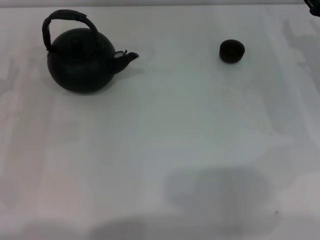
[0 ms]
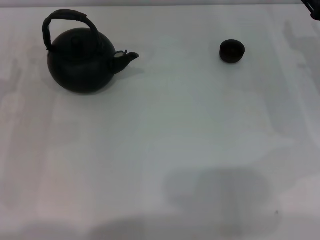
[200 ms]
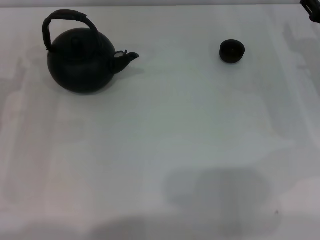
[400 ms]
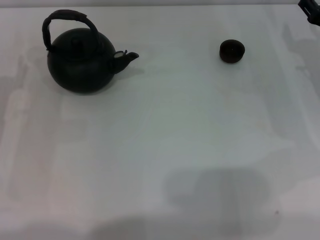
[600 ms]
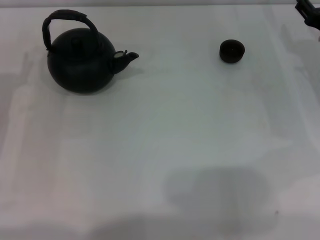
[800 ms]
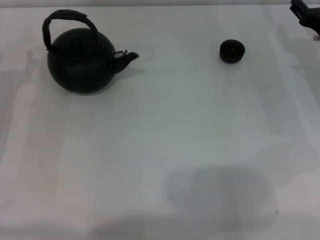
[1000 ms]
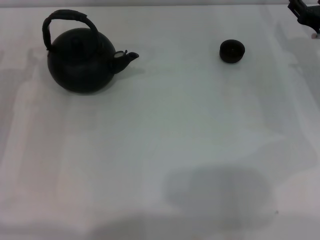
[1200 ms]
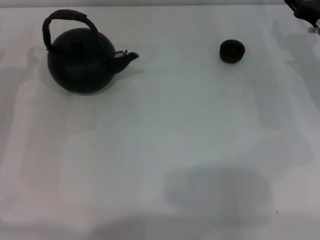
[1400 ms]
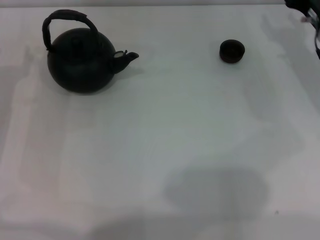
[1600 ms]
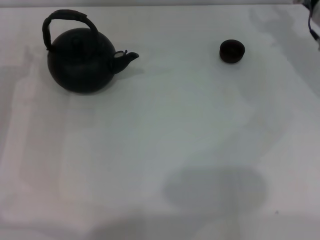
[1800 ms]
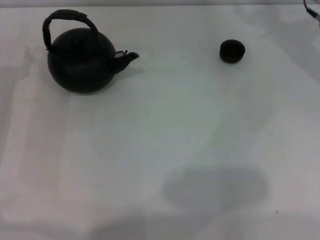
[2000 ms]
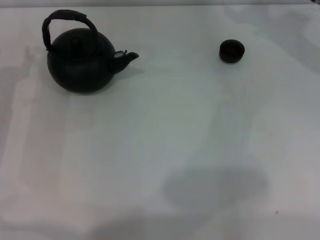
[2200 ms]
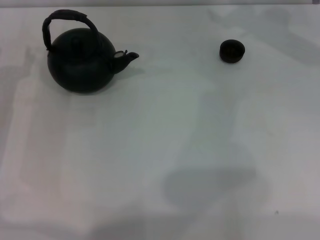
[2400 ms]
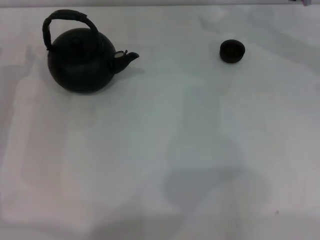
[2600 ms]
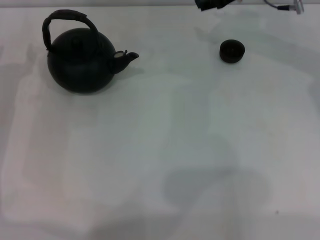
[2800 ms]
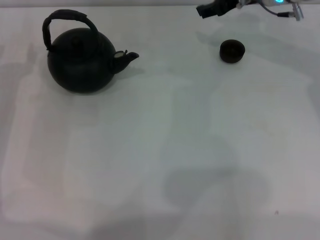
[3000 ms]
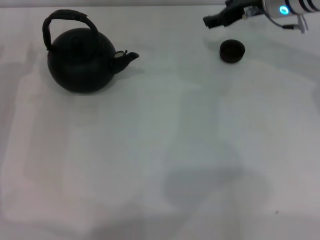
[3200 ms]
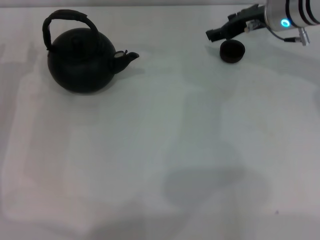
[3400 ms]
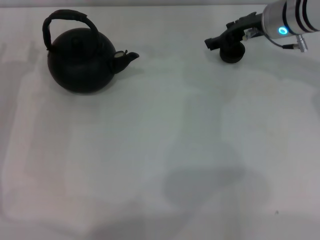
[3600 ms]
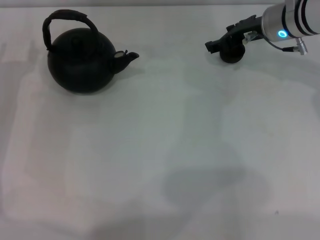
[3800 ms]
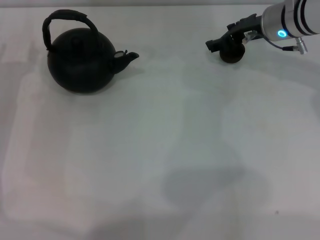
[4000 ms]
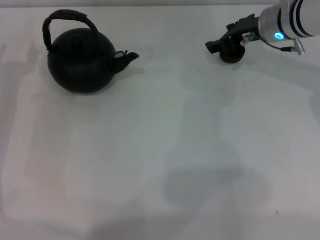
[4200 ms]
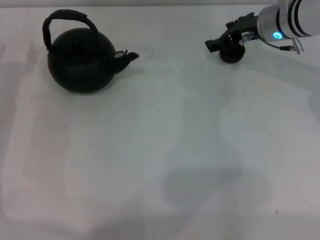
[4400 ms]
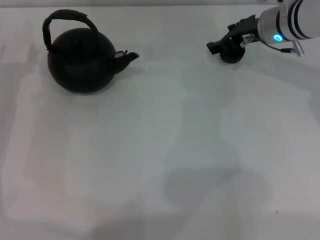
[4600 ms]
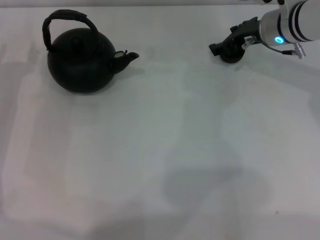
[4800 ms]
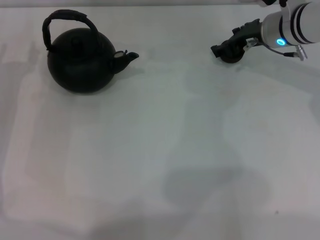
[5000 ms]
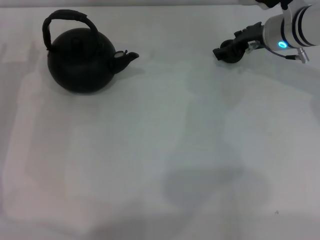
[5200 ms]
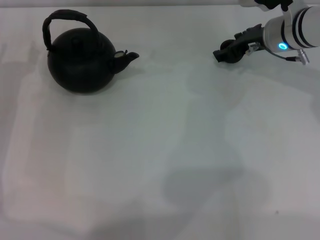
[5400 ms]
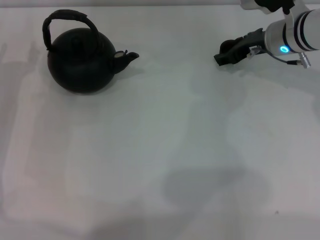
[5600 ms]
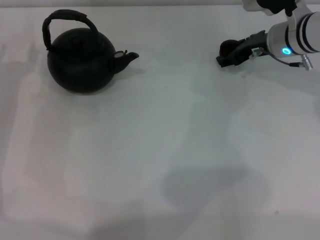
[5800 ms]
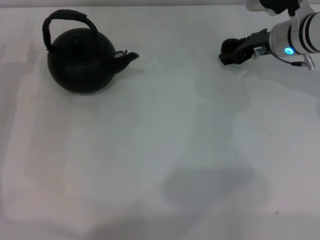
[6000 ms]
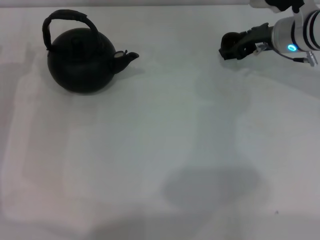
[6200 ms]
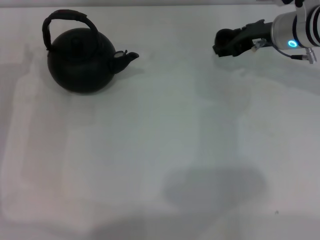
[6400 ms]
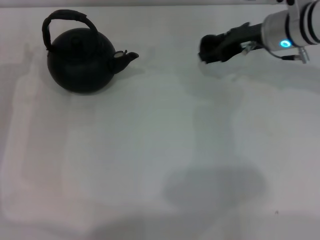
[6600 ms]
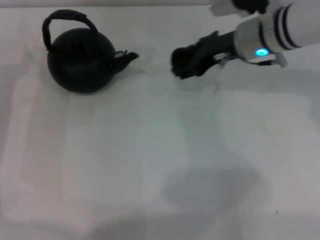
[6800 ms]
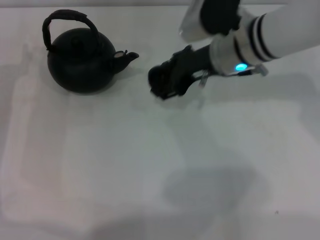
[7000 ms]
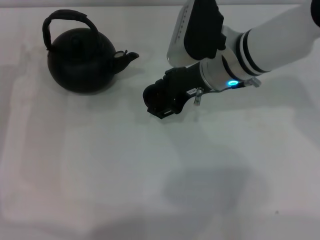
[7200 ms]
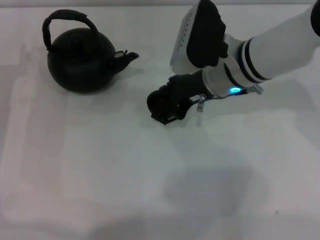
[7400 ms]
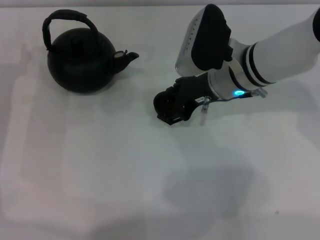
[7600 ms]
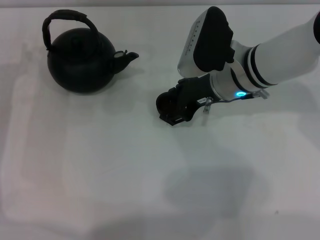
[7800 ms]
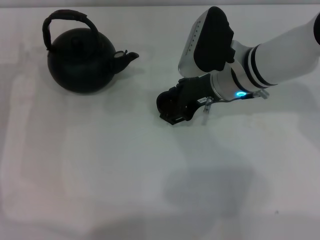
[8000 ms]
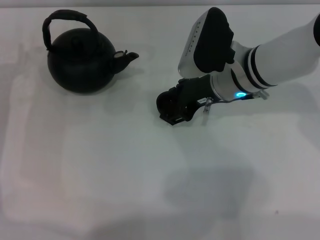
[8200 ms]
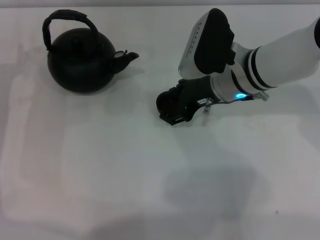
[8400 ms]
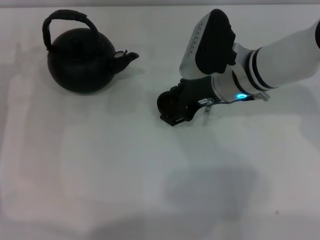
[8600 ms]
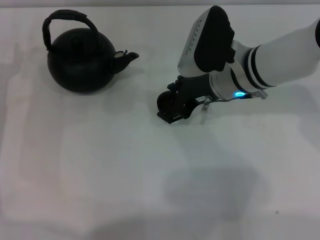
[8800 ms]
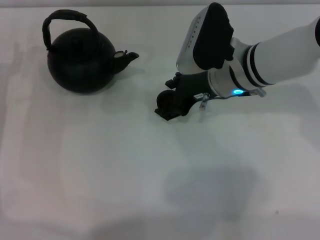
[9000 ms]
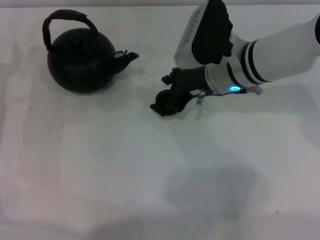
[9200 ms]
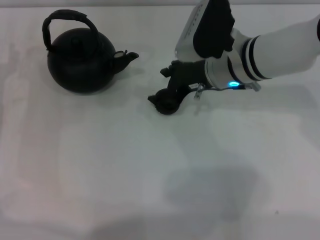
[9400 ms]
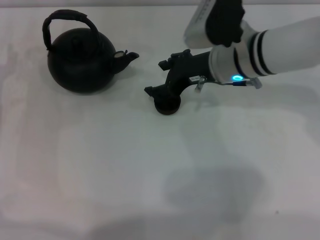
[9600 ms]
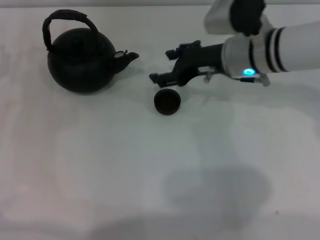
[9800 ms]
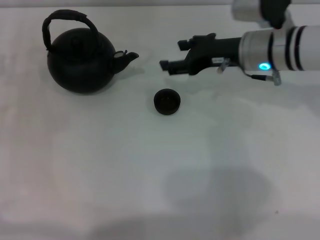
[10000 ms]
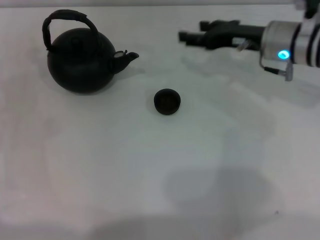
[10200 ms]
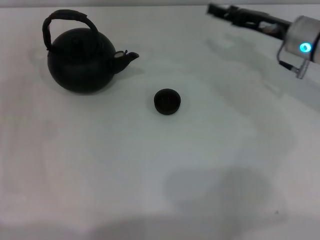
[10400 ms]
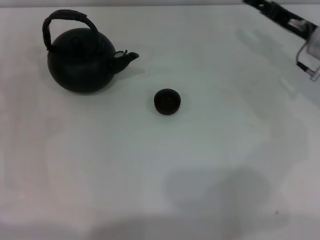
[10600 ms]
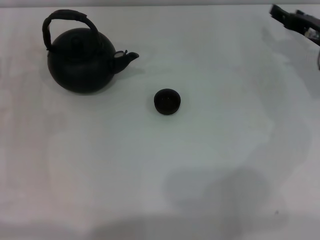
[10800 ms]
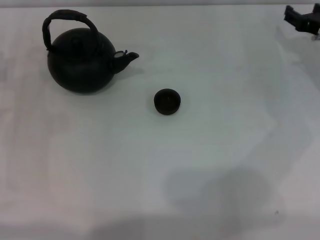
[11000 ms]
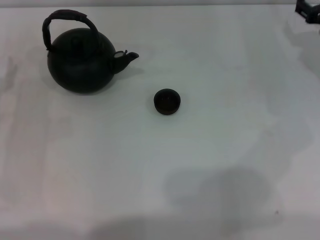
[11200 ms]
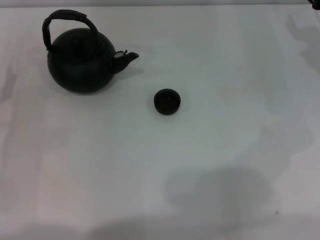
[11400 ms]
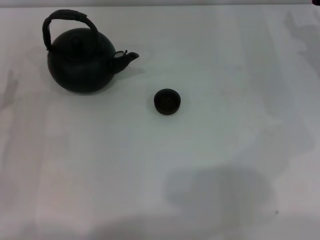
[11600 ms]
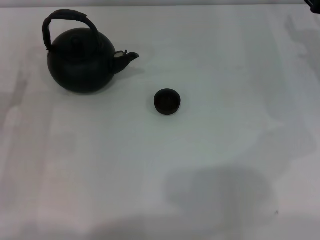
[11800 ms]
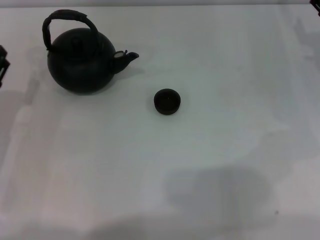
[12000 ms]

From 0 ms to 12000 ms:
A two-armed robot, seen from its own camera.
Task of the whole recording: Grasp the handle of the teapot with one hand and pour tea into the teacup.
Step, from 0 ms to 6000 ms: Pick up the teacup with the right gripper.
Step, from 6400 ms to 9800 ms: Place the teacup in the center of view with the right gripper.
From 1600 ms to 3000 ms: The right gripper is displaced to the left, upward and forward by some 15 cm.
From 3000 ms to 4400 ms: The right gripper shifts by some 5 cm.
From 4400 ms to 6000 ms: There are only small adjustments of the grippers.
From 6000 ms to 7600 ms: The right gripper moves to the left and backward, about 10 cm.
From 7600 ms to 9000 ms: Both grippers stay about where they are.
From 9000 ms to 10400 ms: The right gripper heads to the right, covering about 10 cm.
From 10400 ms to 12000 ms: The right gripper shifts approximately 10 cm to the right.

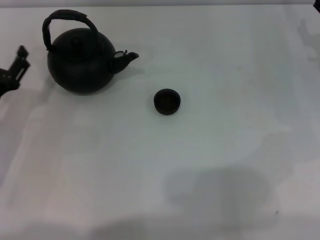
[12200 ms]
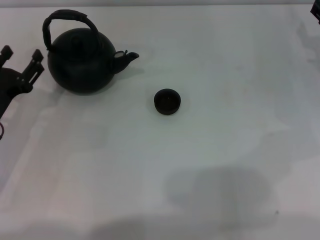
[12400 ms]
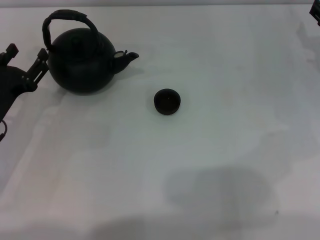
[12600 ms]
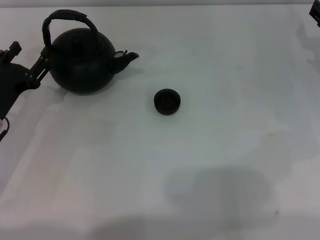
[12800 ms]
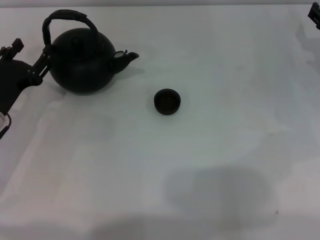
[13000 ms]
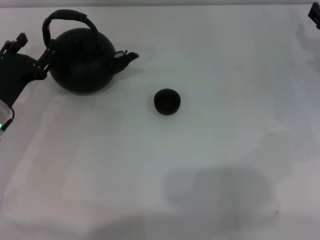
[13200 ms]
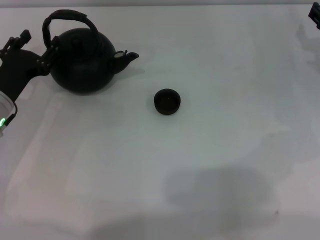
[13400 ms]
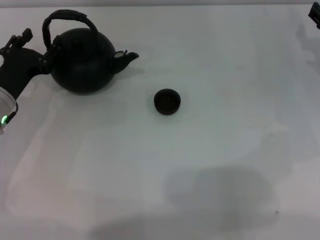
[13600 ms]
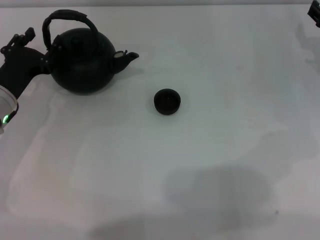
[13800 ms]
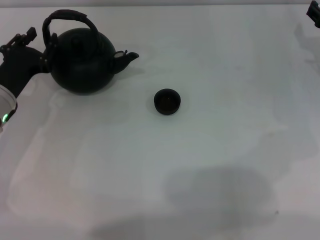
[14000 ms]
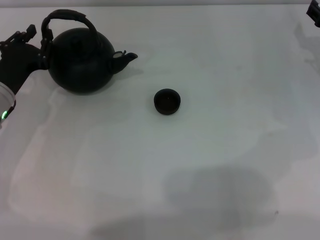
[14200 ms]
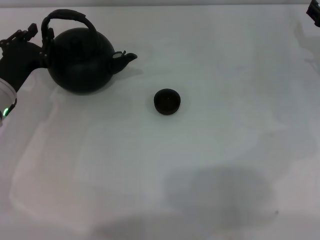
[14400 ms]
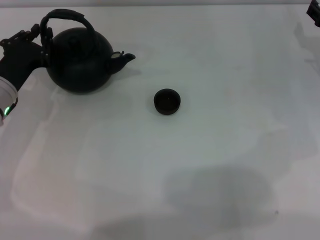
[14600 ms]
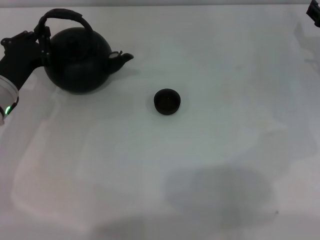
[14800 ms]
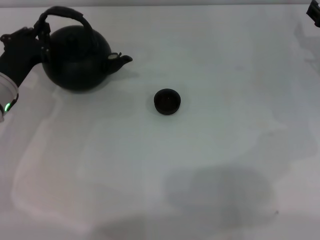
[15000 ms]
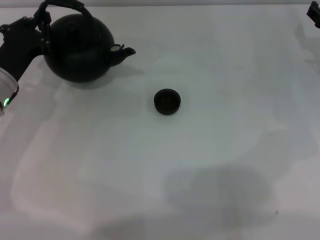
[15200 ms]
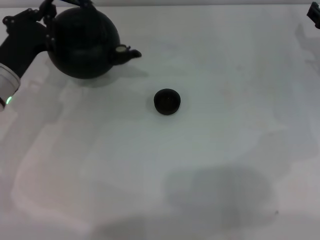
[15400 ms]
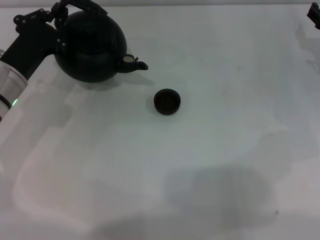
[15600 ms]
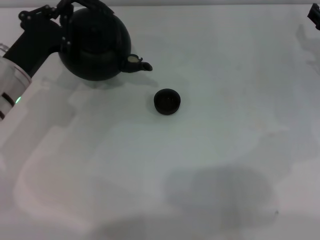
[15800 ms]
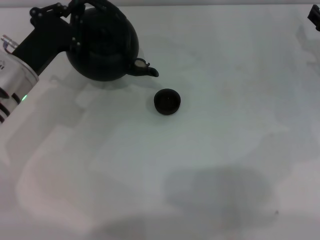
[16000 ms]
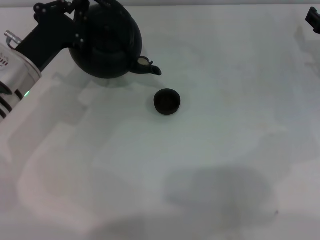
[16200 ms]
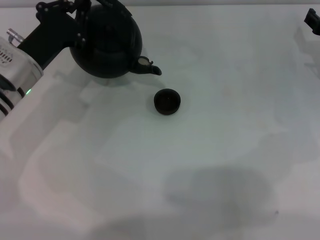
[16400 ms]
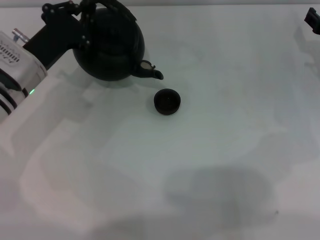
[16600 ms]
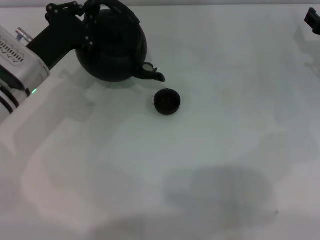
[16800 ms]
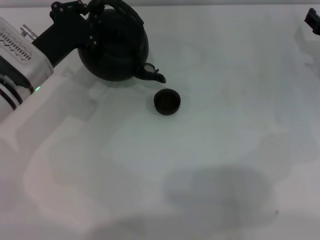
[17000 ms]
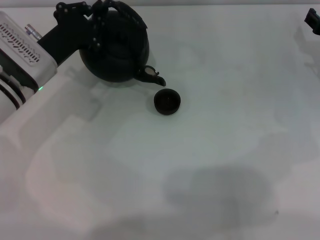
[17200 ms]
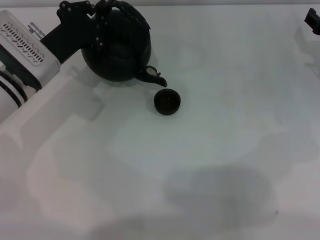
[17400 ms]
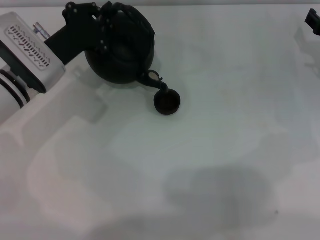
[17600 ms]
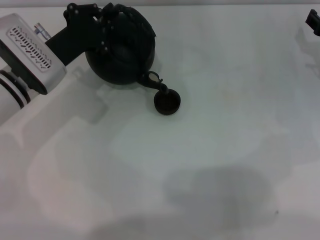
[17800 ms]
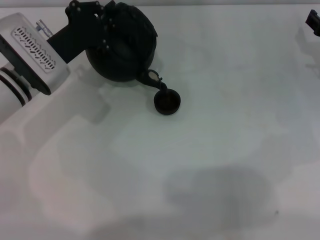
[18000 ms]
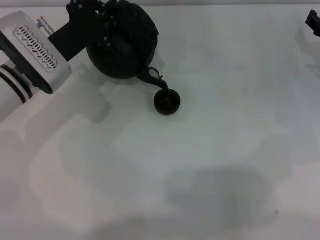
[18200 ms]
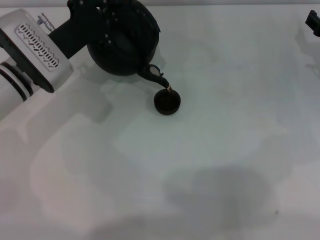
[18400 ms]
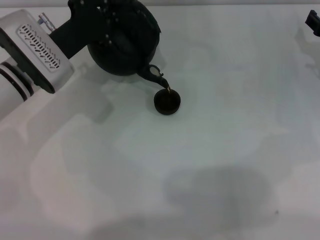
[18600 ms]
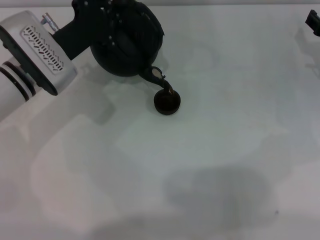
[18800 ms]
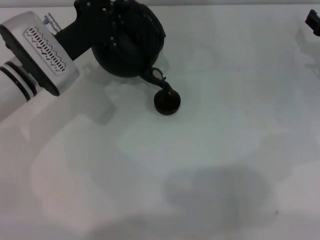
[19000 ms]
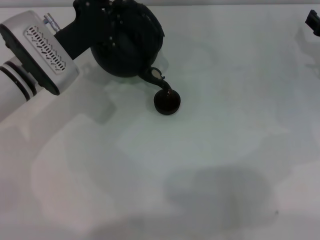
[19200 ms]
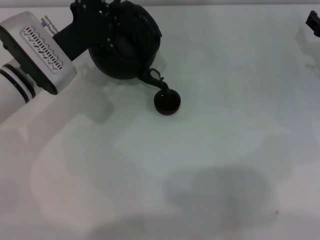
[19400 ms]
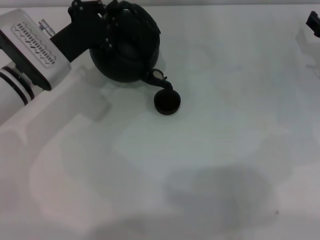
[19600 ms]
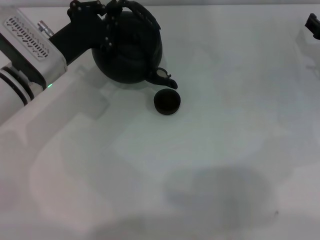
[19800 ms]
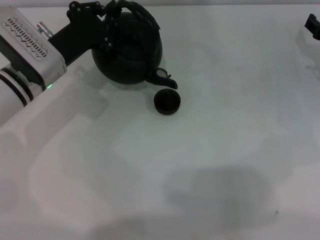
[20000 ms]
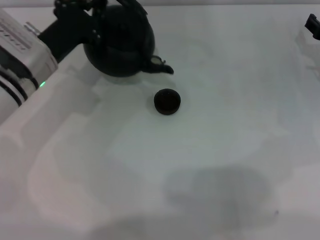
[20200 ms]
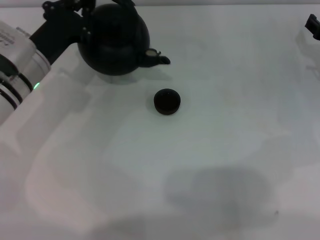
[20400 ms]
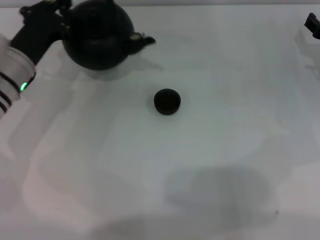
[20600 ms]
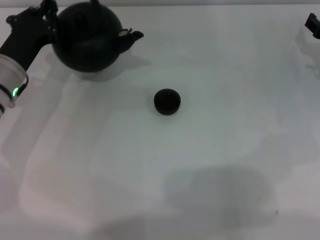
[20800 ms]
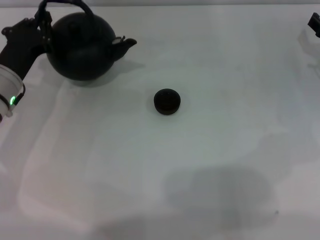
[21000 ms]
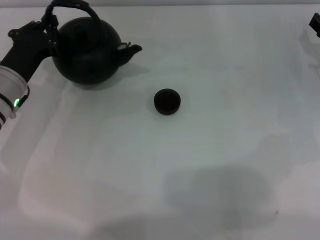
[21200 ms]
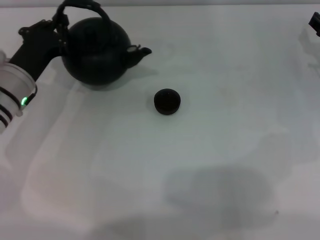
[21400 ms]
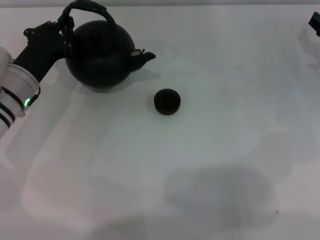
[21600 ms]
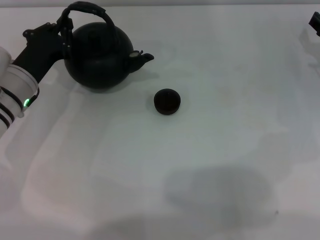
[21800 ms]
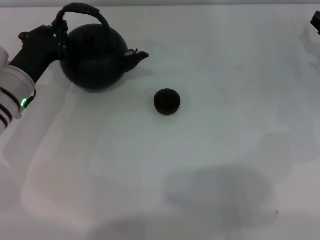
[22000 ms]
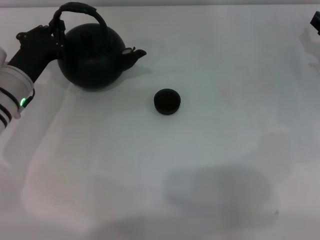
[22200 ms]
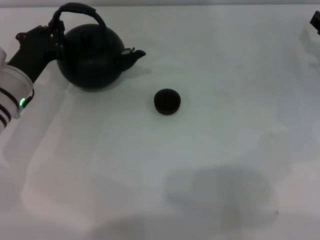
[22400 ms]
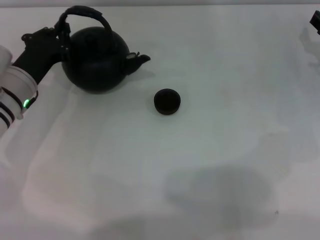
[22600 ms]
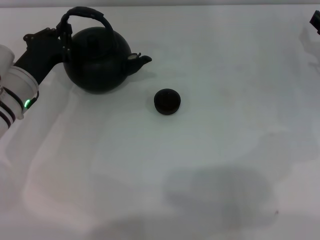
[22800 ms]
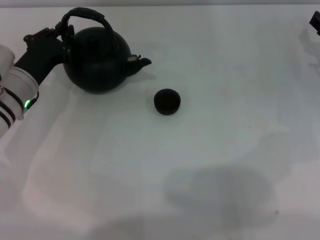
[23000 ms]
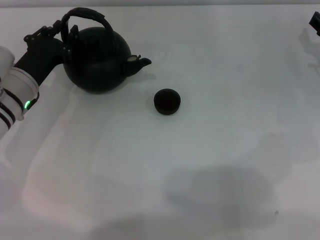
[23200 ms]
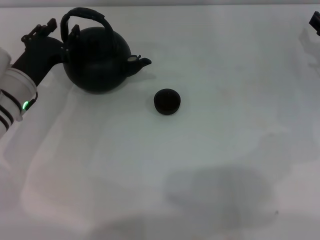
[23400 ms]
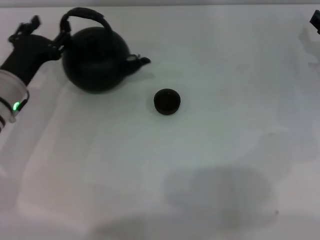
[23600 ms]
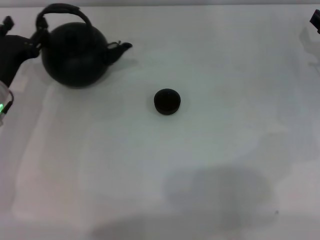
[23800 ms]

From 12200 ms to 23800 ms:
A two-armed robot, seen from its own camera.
Task of the whole recording: Grasp the handle of the teapot with one hand and pour tea into the teacup.
Step, from 12200 ms to 15600 ms: Pick up the teapot with the left gripper.
Step, from 15800 ms to 20200 ms: Pour tea into the teacup with the left gripper.
From 12200 ms to 13600 ms: The left gripper ends up about 5 cm from where it was.
From 13600 ms to 15000 ms: The left gripper closes up.
From 15000 ms to 16600 ms: The left gripper changes place by about 5 cm.
From 16600 ms to 18000 ms: The grippers make only small movements.
From 18000 ms to 19400 ms: The grippers make only small movements.
From 19400 ms to 21000 ms: The left gripper shifts roughly 5 cm to the left.
From 21000 ms to 22400 ms: The grippers stay close to where they were, moving slightly.
From 22400 ms to 23800 ms: The left gripper opens its fingers.
